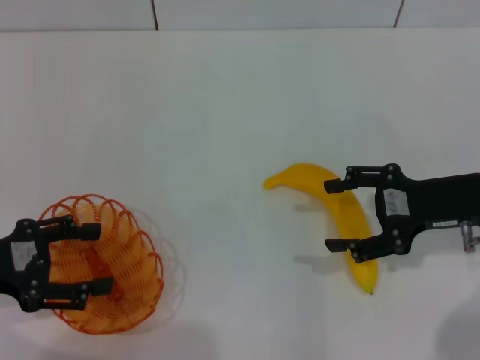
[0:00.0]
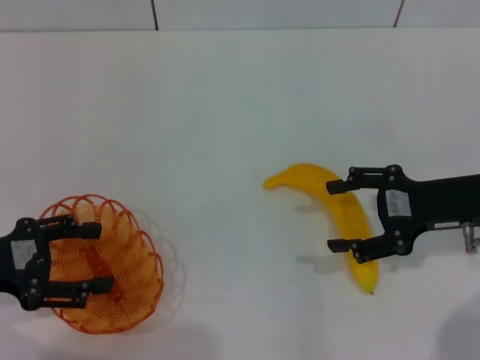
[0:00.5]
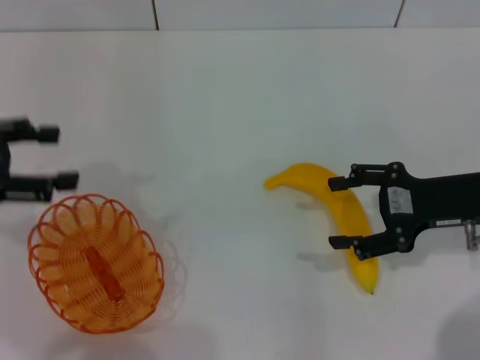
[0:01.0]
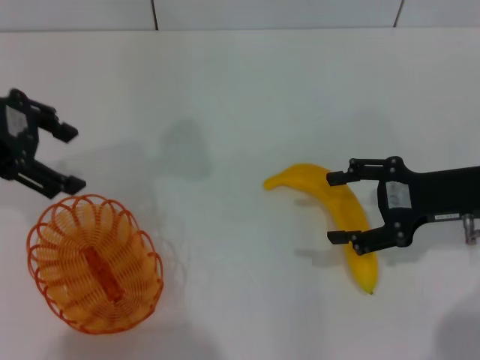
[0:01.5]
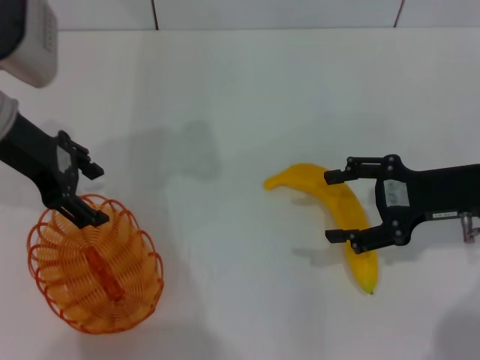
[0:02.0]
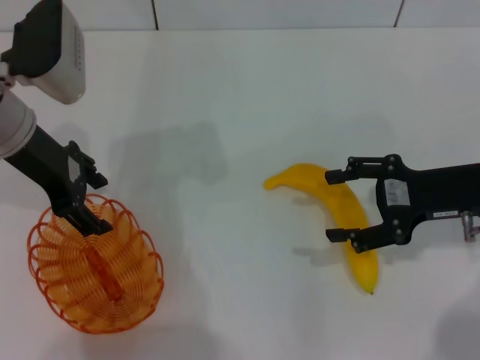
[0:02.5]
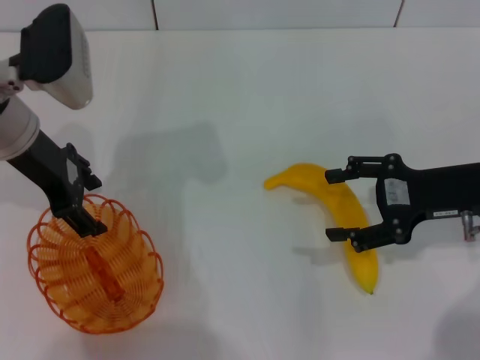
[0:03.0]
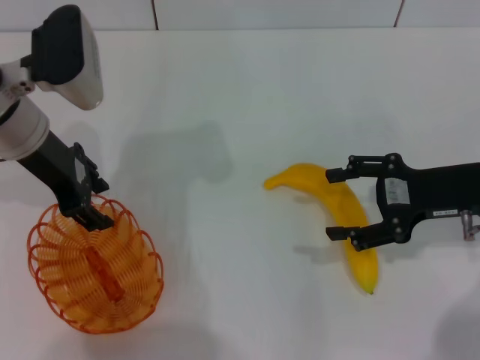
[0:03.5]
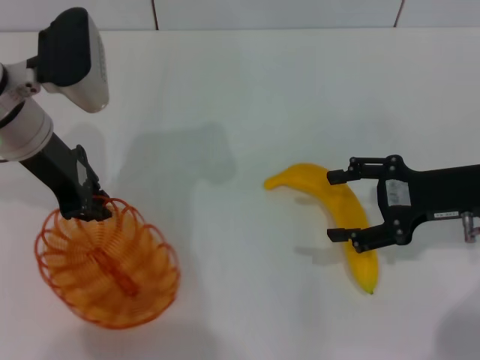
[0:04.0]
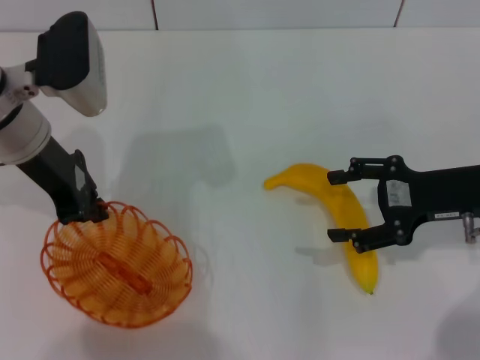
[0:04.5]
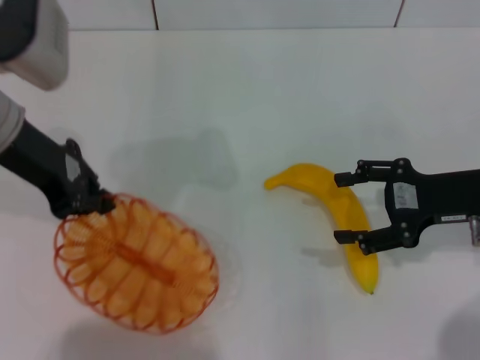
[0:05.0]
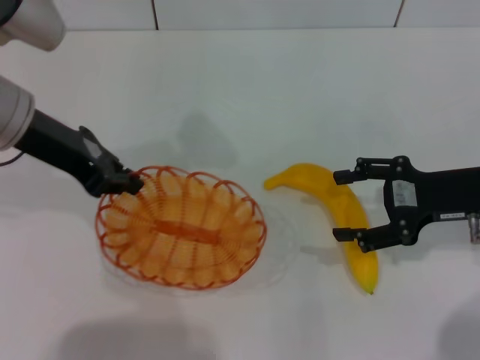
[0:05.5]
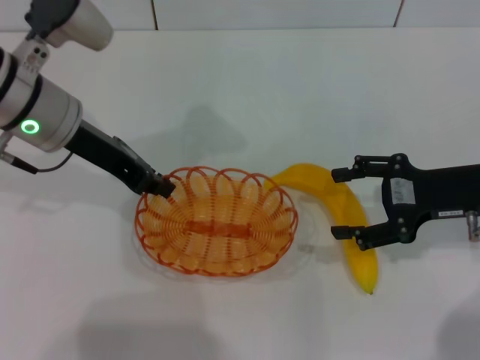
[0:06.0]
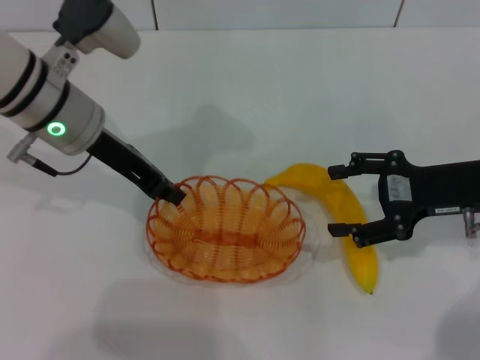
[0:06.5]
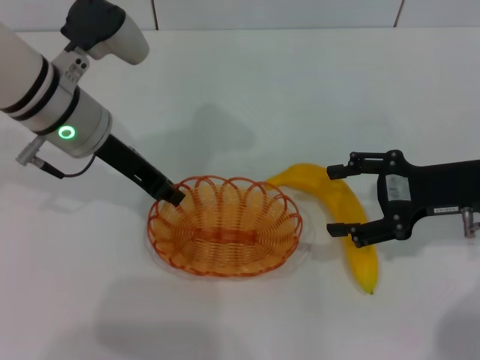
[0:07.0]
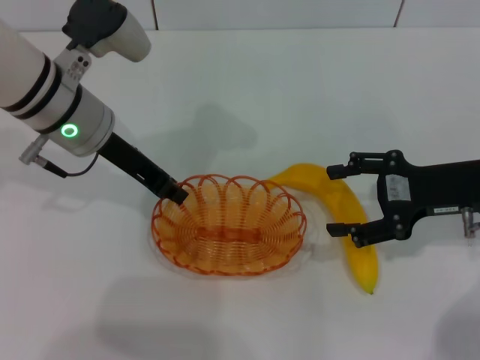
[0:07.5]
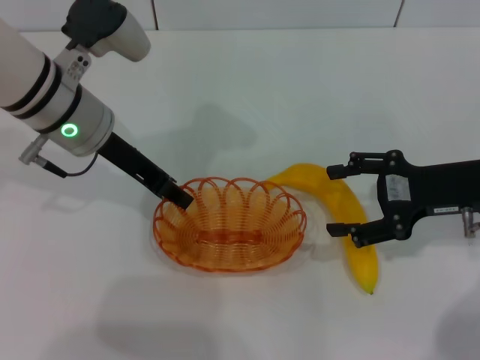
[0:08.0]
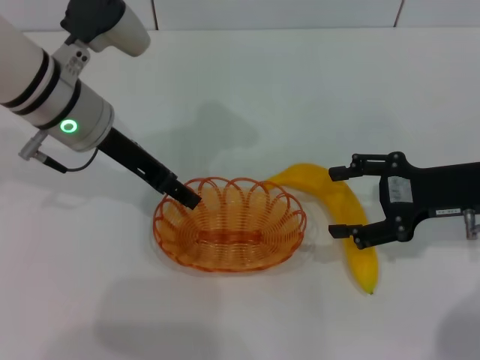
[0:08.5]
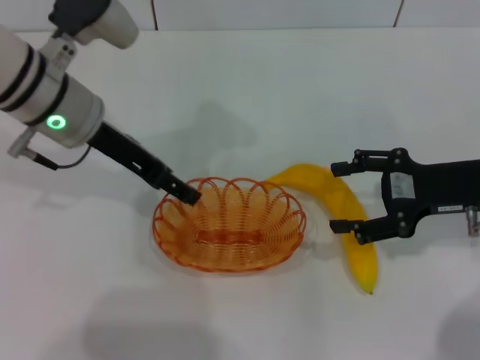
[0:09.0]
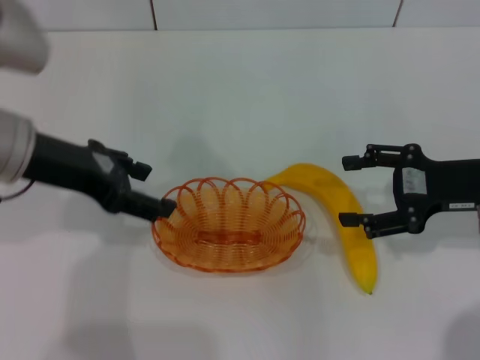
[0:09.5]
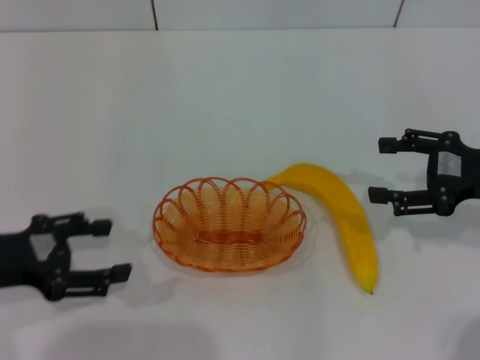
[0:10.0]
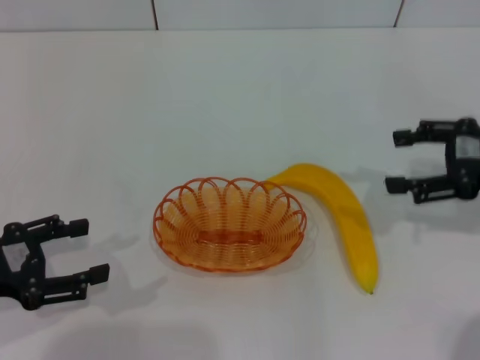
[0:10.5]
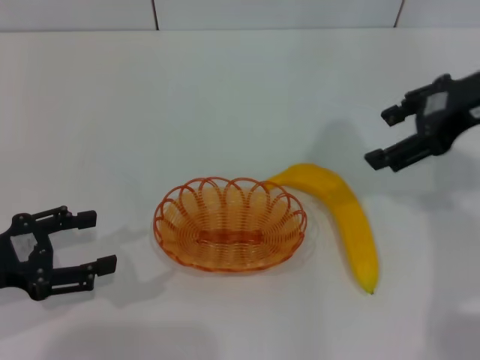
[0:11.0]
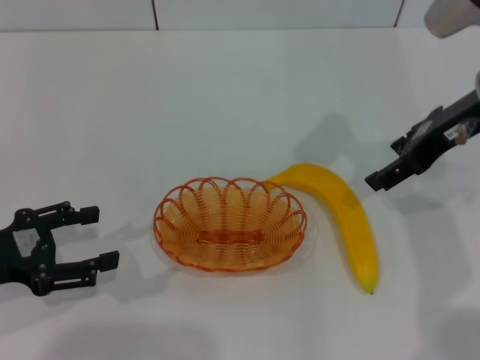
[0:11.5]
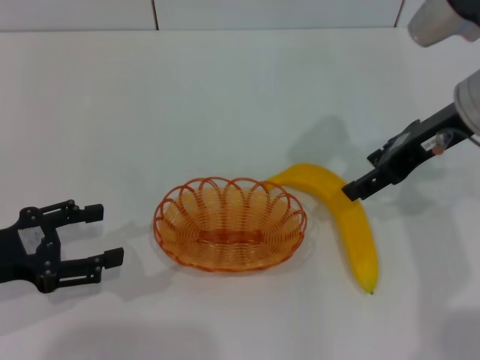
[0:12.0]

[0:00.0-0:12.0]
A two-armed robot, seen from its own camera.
Step, 0:00.0 to 0:05.0: Pick up the basket with the left gripper.
Step, 0:05.5 to 0:09.5: Place the basket in the center of view with the left gripper.
0:00.0 to 0:02.0: The left gripper shifts some 20 cm forward, upward and to the right.
0:02.0 to 0:04.0: The left gripper closes.
0:04.0 to 0:06.0: The left gripper closes up.
0:06.0 to 0:08.0: There are only small adjustments of the grippers.
0:08.0 to 0:10.0: The left gripper shifts about 20 cm backward and to the left, and opens its fingers.
0:10.0 to 0:12.0: The right gripper travels to the left, upward and forward by some 15 cm.

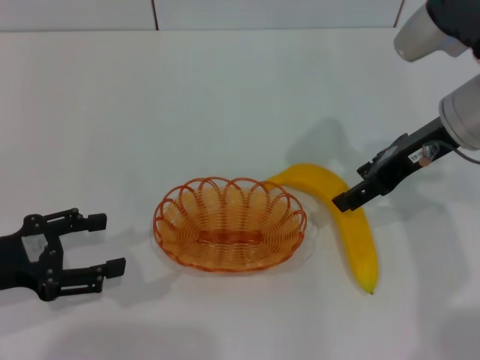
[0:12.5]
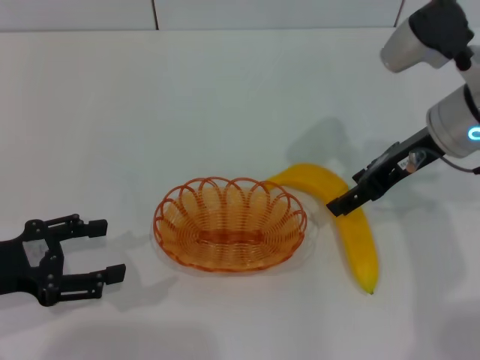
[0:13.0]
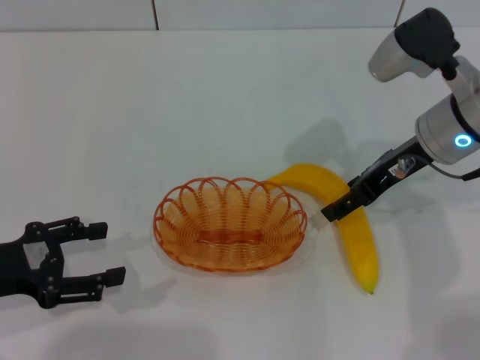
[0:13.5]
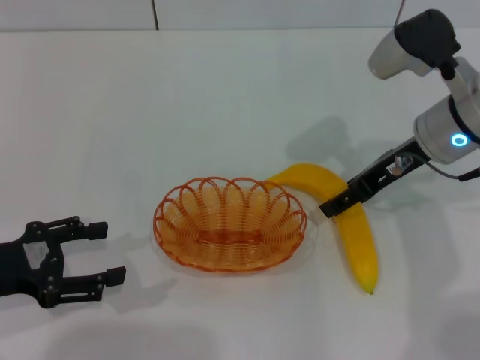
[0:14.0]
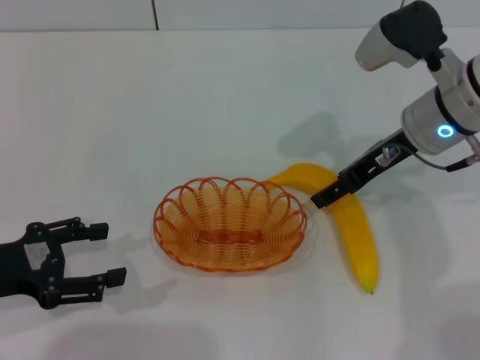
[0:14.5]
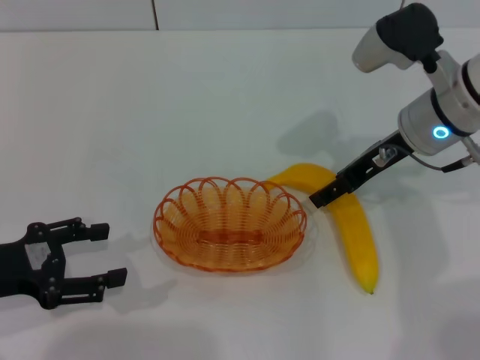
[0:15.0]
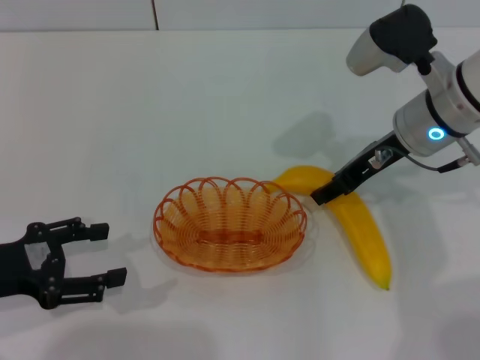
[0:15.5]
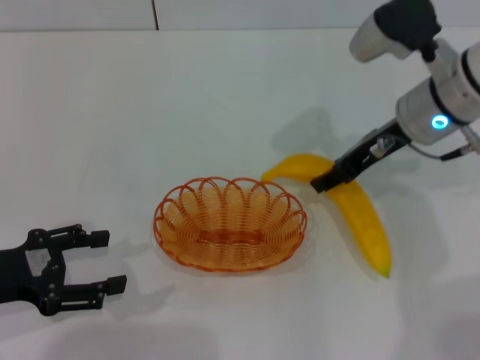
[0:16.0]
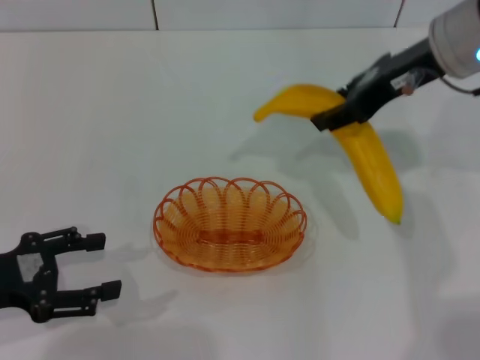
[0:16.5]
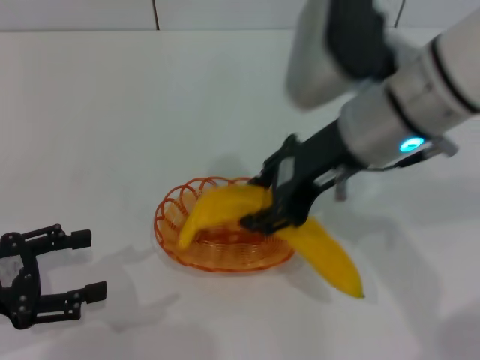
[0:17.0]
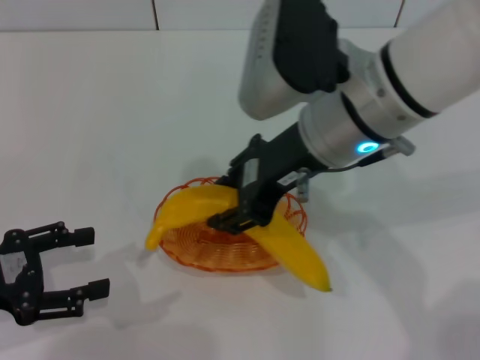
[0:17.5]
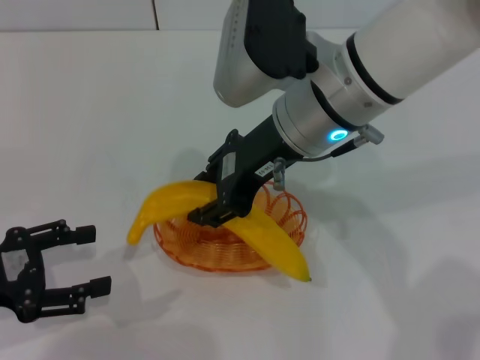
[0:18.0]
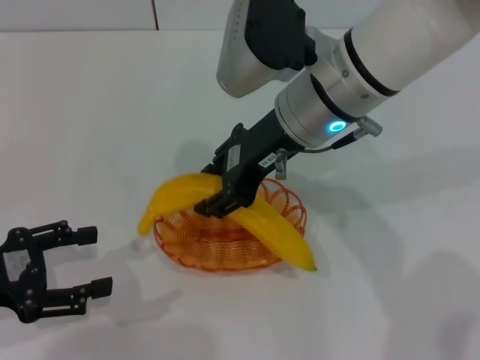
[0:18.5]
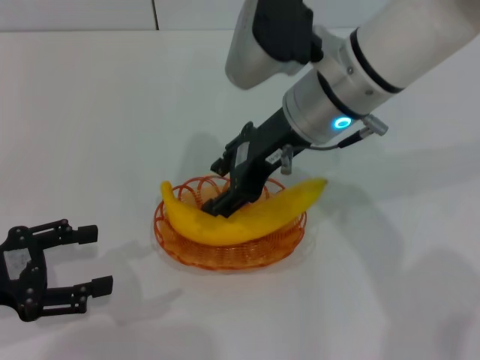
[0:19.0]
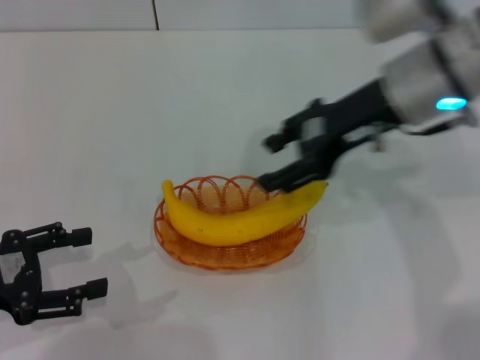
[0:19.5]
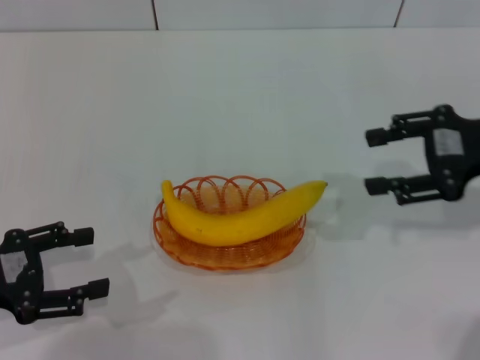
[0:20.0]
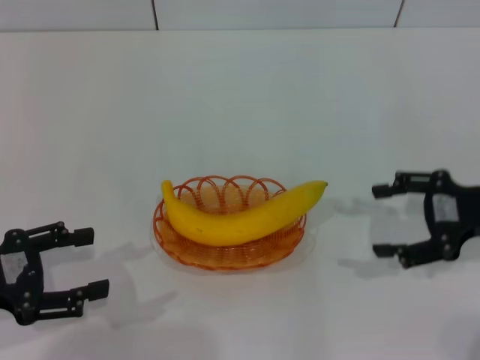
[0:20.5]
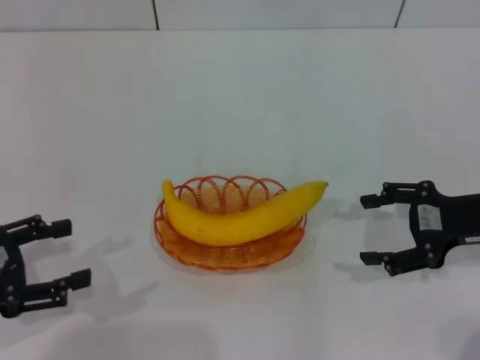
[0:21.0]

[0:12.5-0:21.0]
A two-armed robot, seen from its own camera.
Step, 0:12.5 to 0:16.0: Pick up the banana with the right gripper.
Step, 0:16.5 to 0:19.0: Place the banana into the basket with the right gripper.
0:12.5 to 0:14.5: There are only small adjustments of the grippers.
0:14.5 to 0:16.5: The right gripper moves upward, some 10 cm, and closes its fingers.
0:16.5 to 0:19.0: The right gripper heads to the left, covering approximately 10 cm.
0:19.0 to 0:21.0: The right gripper moves to the right and downward, approximately 25 cm, and opens up.

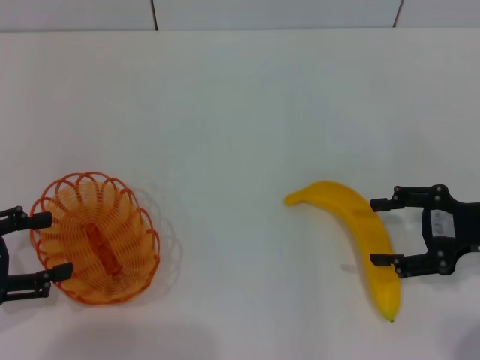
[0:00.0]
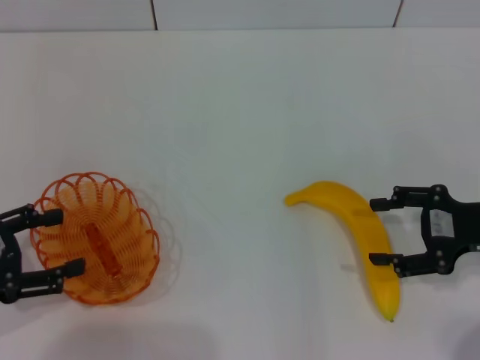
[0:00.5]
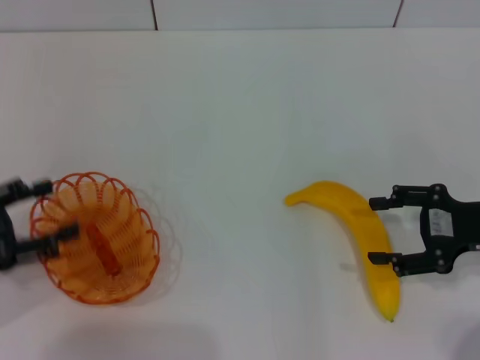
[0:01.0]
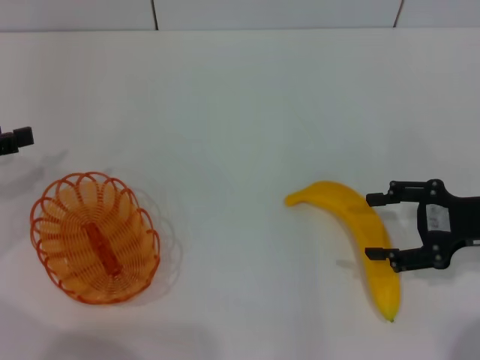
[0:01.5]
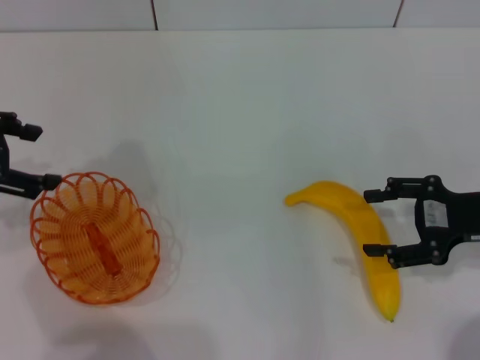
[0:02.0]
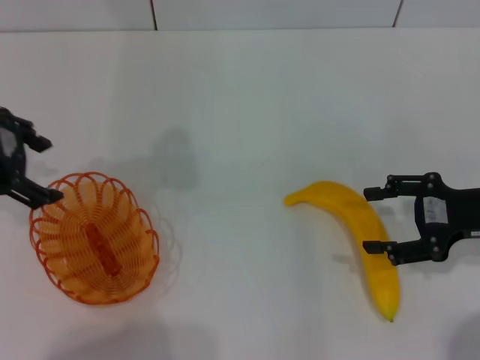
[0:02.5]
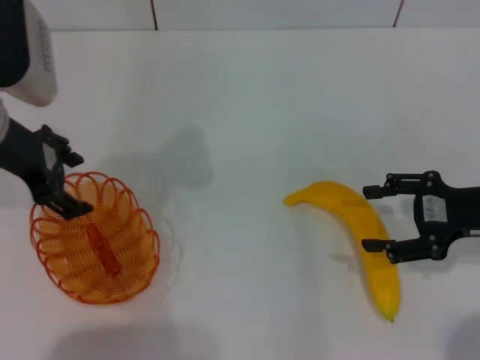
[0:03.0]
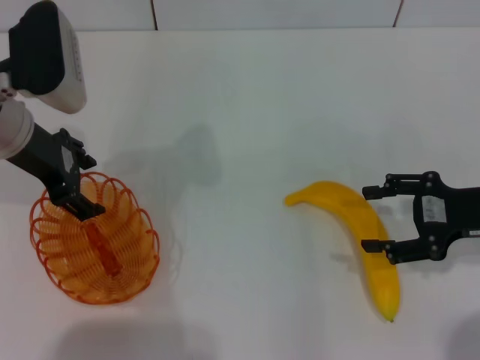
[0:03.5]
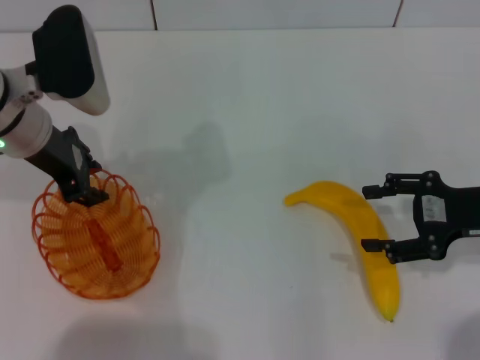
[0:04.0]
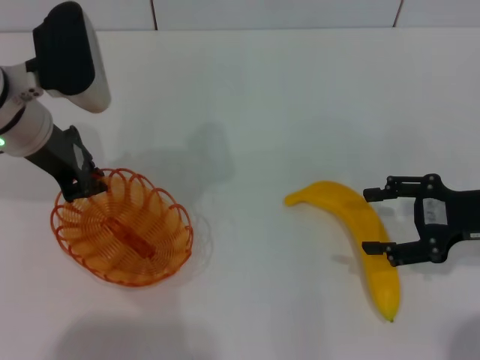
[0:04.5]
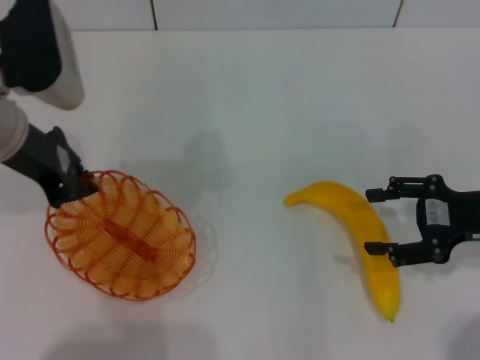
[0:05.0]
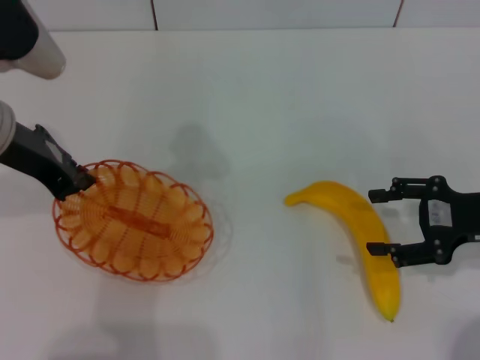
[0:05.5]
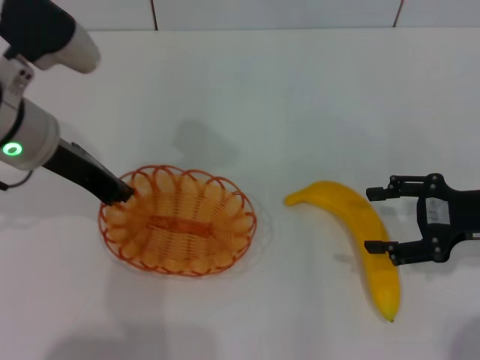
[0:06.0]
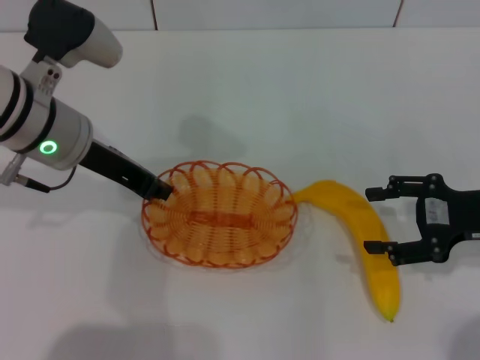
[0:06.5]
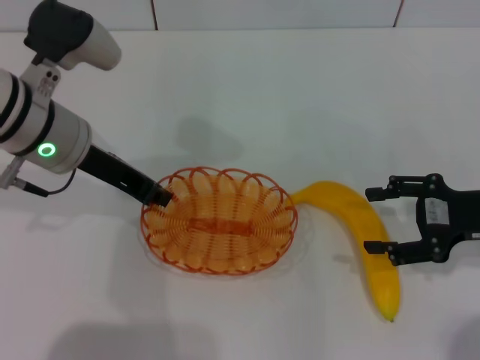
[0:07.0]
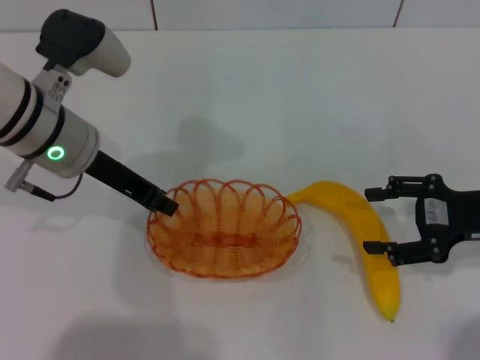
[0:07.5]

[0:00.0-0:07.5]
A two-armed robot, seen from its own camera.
Step, 0:00.0 to 0:05.5: Pick up the basket with the left gripper.
0:00.0 to 0:02.0: The left gripper travels forward and upward by some 15 cm.
0:02.0 to 0:04.0: The left gripper goes approximately 15 cm to the right and forward.
0:04.0 to 0:05.5: The left gripper moves roughly 5 cm, and closes its fingers.
0:05.5 to 0:07.5: The left gripper ends up approximately 5 cm from where it was.
